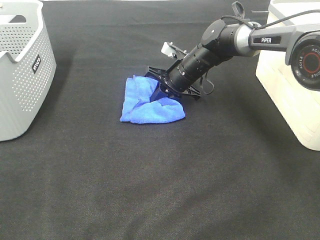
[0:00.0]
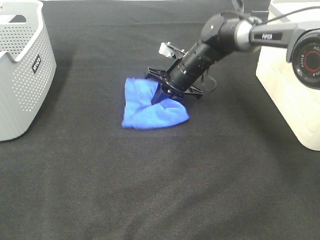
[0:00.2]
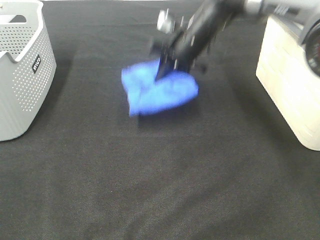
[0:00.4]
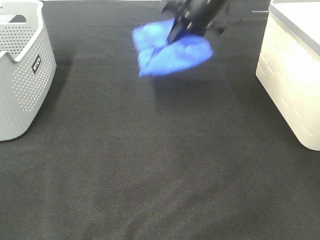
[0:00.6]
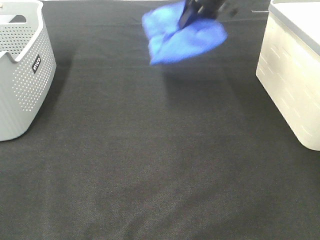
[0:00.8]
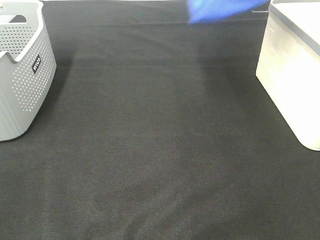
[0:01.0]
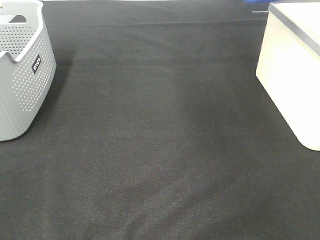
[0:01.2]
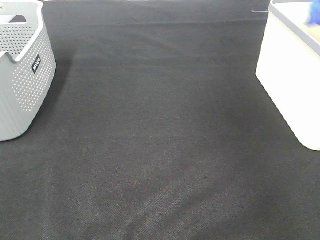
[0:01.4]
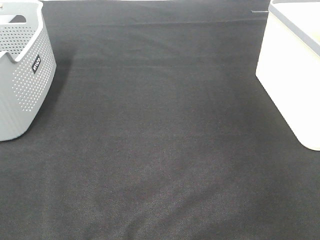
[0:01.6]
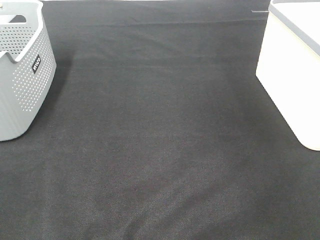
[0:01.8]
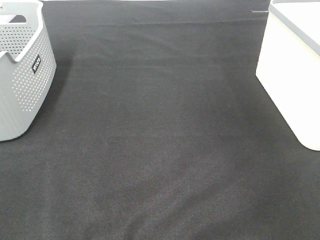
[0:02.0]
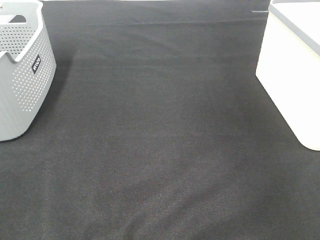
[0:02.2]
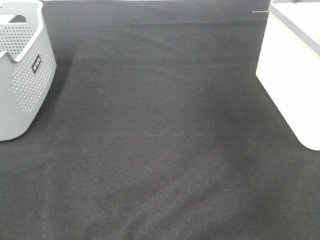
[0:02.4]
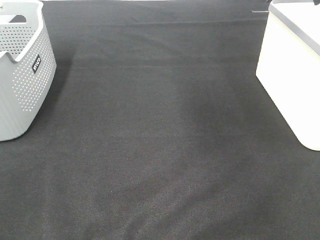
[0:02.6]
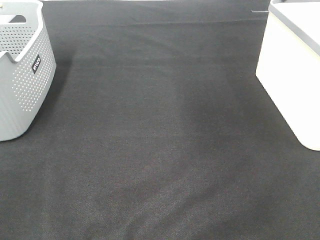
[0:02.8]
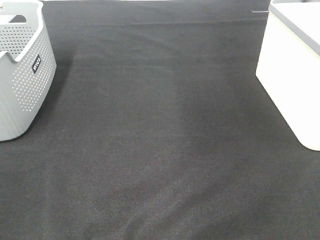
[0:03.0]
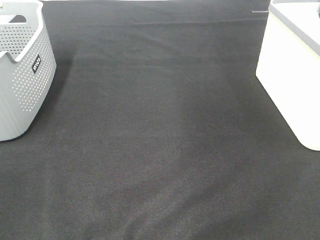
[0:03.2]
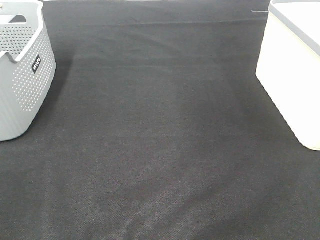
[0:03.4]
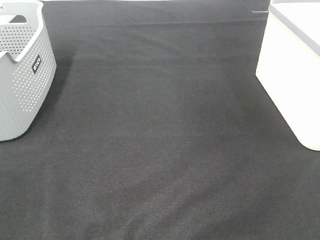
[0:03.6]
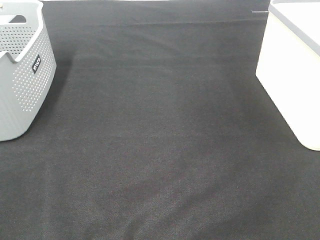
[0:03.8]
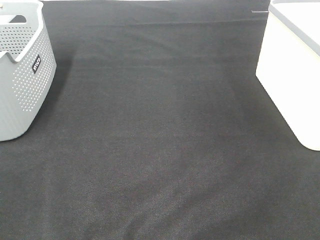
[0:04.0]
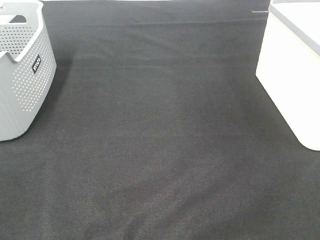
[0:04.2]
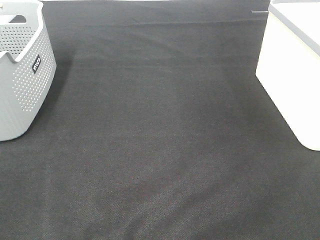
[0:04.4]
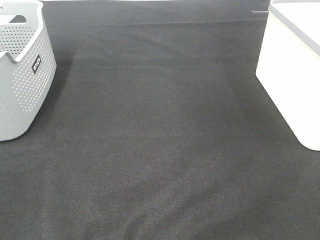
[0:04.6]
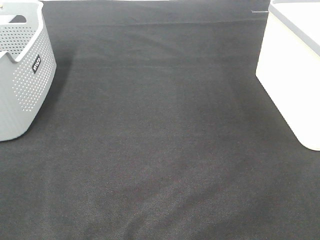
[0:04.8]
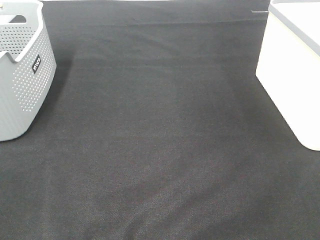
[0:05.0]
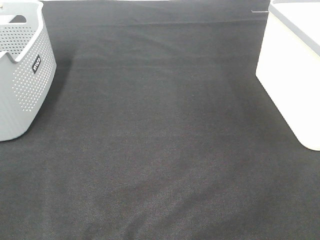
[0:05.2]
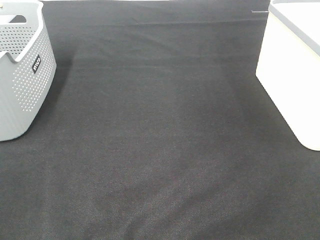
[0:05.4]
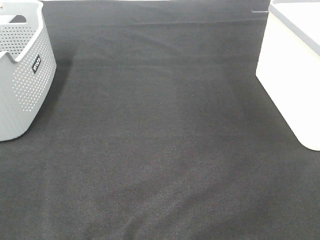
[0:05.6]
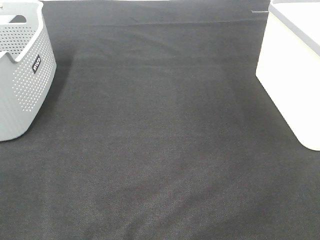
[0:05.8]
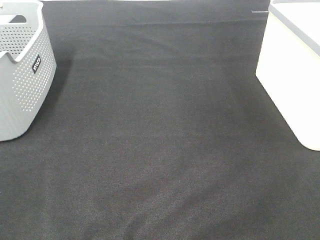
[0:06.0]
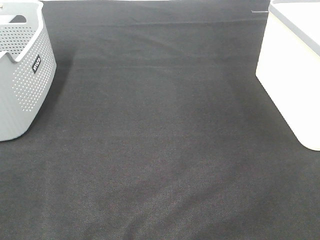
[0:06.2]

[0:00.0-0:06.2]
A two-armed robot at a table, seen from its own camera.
Step, 0:00.2 to 0:02.0: Right hand: place the blue towel in right basket.
0:00.0 to 0:01.6: The right gripper heads to the right and upward, covering roughly 40 cm.
0:04.6 to 0:06.2: The two grippers keep their place.

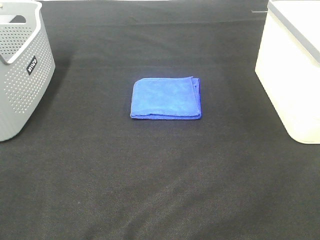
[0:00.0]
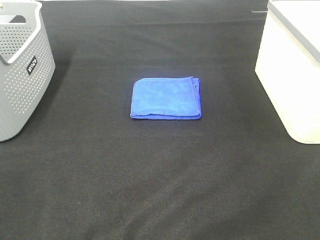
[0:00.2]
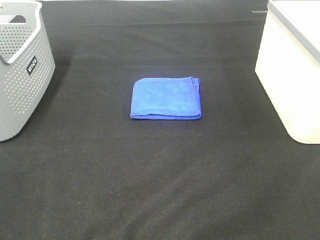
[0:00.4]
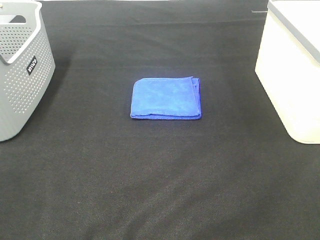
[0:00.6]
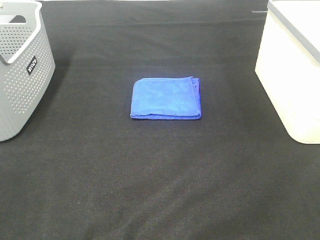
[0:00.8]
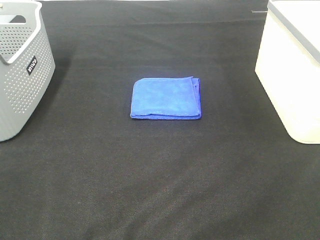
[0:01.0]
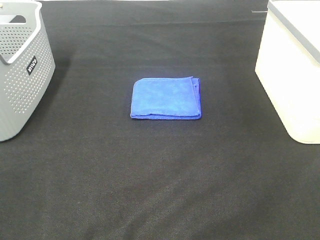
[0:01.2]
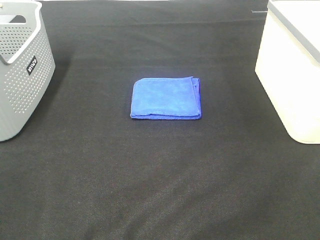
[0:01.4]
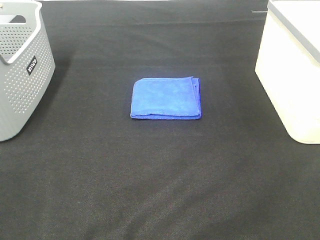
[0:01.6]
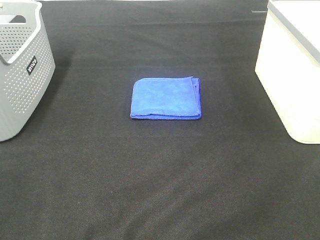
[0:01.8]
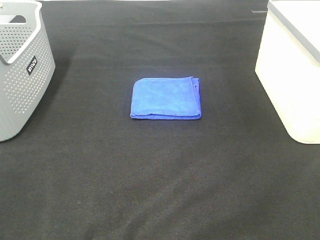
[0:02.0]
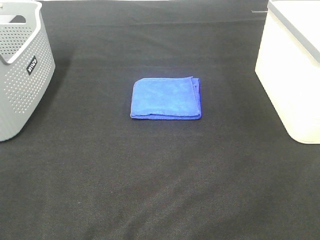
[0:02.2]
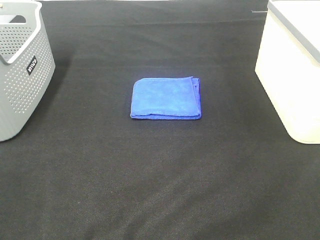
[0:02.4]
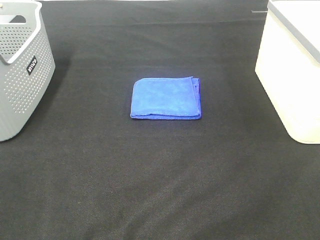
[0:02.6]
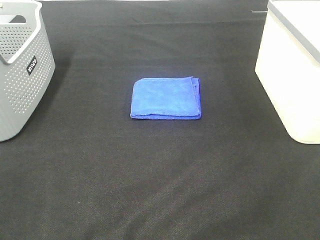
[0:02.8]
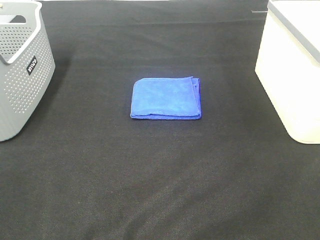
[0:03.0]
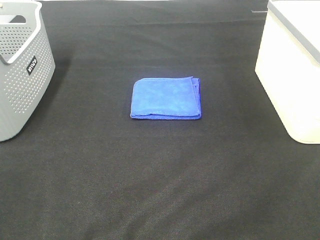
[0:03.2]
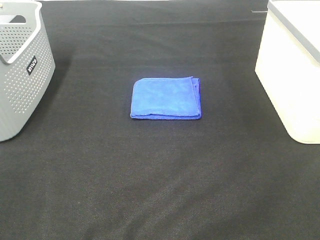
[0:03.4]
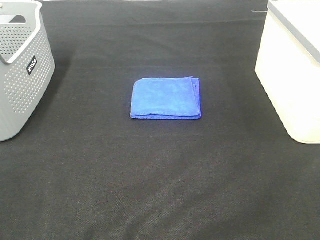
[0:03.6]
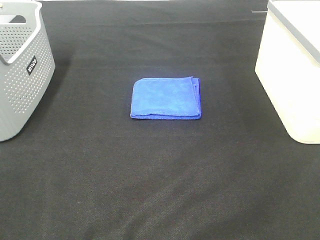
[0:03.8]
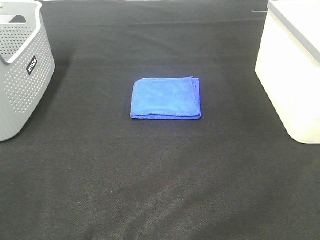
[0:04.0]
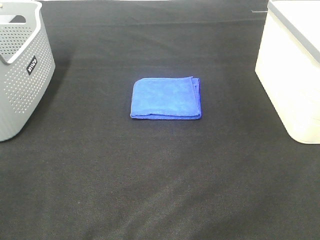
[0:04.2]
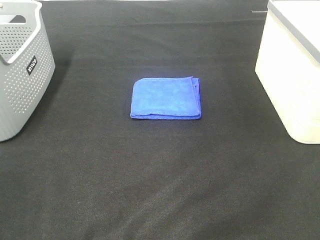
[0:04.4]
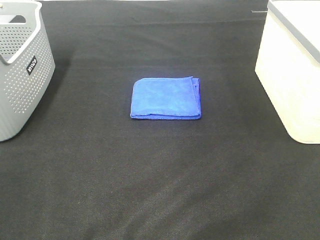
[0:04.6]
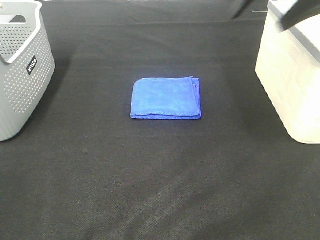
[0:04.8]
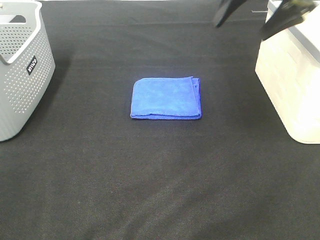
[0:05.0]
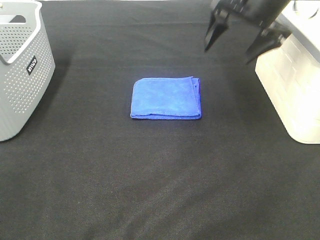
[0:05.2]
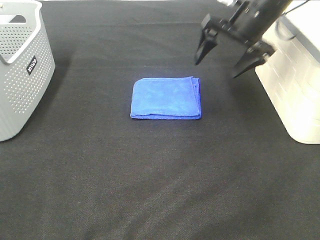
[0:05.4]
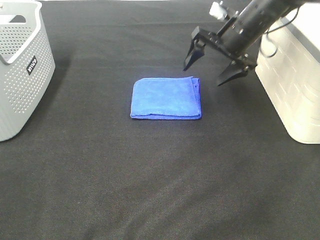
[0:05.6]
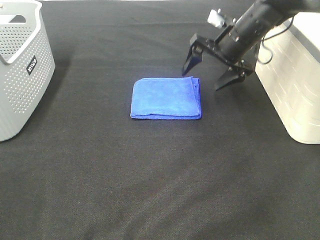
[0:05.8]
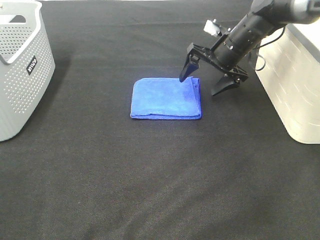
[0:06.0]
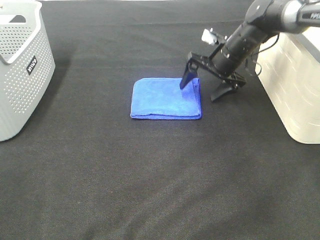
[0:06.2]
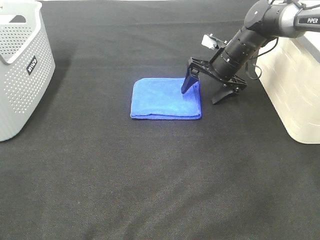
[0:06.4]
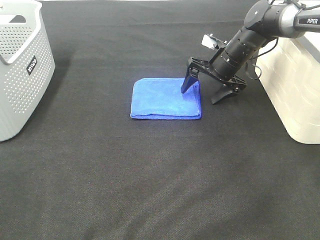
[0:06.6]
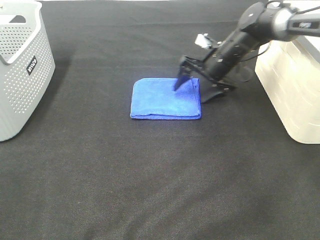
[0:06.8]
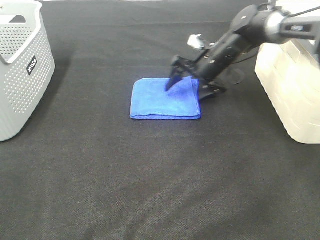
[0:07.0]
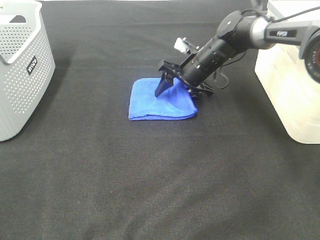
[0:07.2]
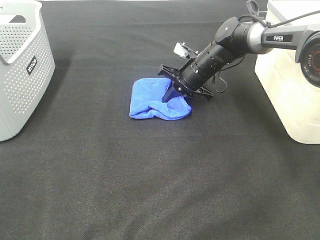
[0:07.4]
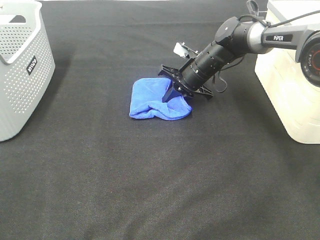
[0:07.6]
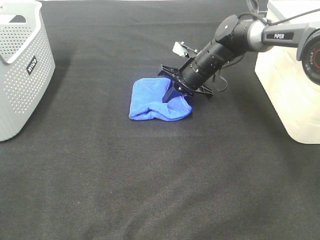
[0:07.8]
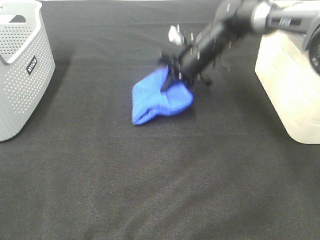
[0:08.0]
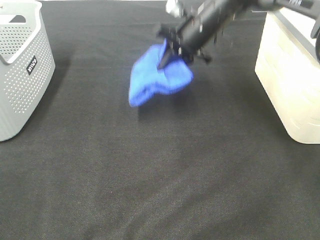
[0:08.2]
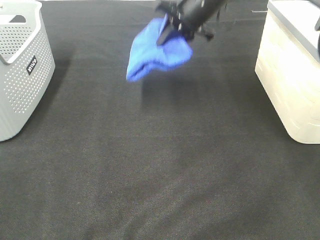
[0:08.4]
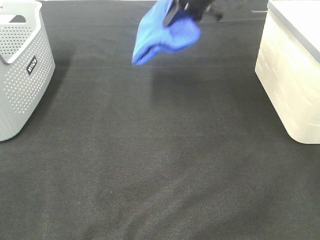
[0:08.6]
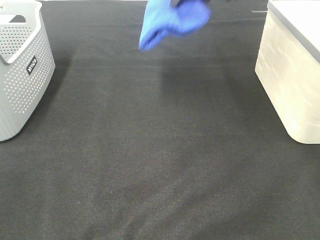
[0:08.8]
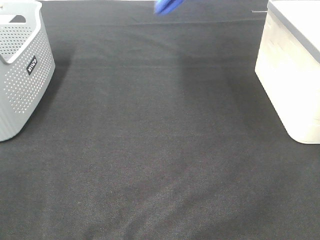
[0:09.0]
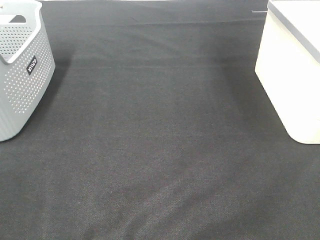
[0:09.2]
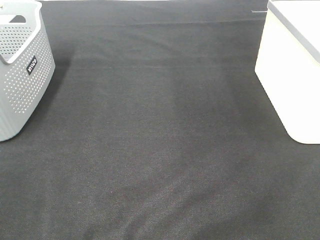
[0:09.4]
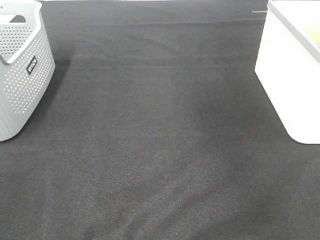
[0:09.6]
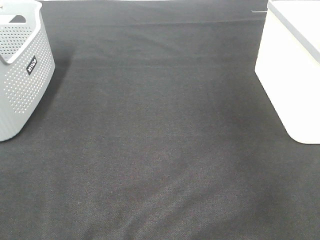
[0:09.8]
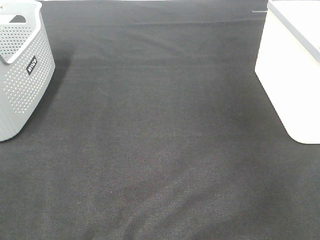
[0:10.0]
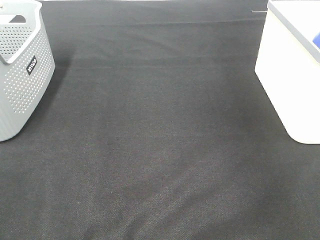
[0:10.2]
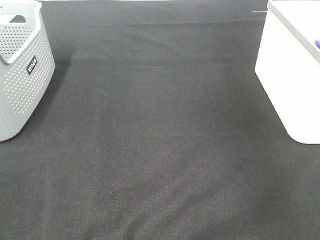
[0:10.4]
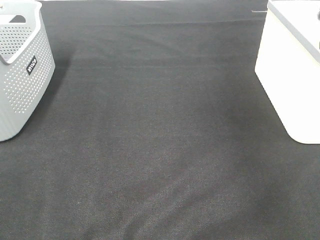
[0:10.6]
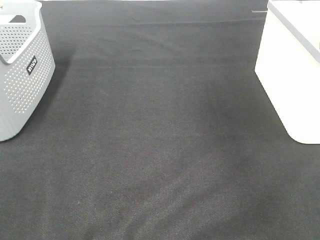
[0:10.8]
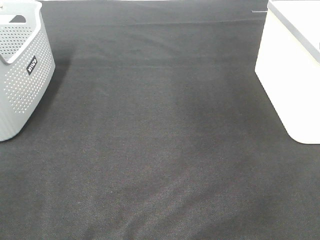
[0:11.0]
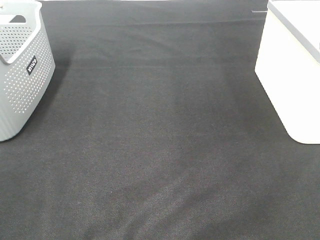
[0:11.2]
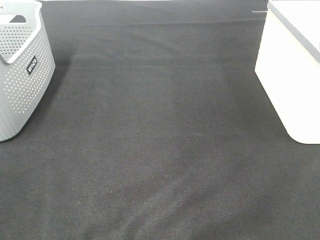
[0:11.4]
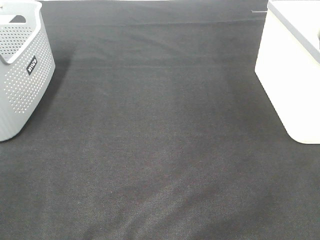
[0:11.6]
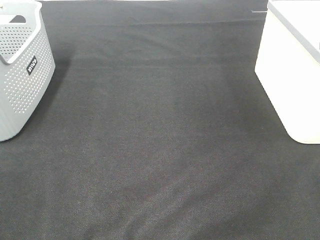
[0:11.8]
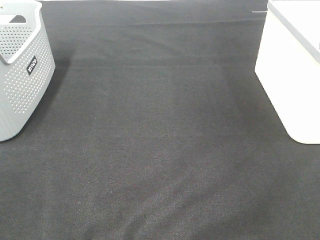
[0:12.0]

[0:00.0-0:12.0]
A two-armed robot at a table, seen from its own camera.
Step, 0:00.0 to 0:07.6: Right hand: grab the folded blue towel.
Step, 0:07.8 to 0:10.4: Right hand: place the blue towel in right basket.
0:00.0 to 0:03.0: Both grippers stay about where they are.
0:04.4 to 0:06.0: The right gripper travels downward, forward and to the left by some 40 cm.
0:06.0 to 0:07.6: The right gripper shifts roughly 10 cm to the left and downward, and closes its fingers.
0:07.6 to 0:09.0: The right gripper heads upward, covering approximately 35 cm.
0:09.0 to 0:10.4: The right gripper moves to the right, approximately 25 cm, and opens its fingers.

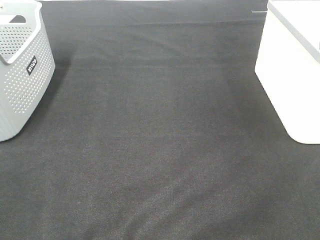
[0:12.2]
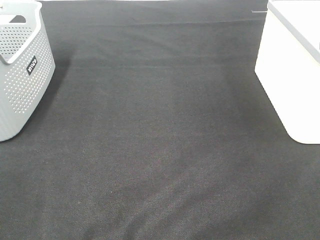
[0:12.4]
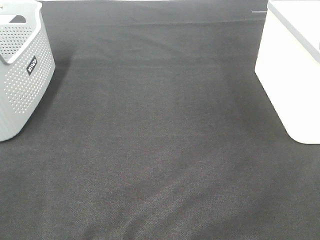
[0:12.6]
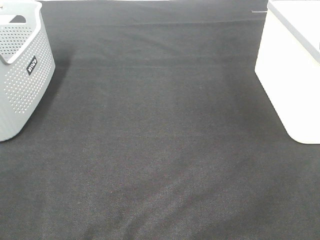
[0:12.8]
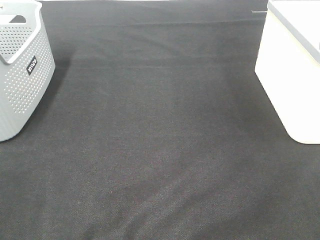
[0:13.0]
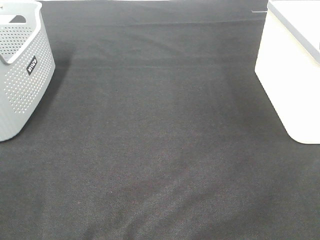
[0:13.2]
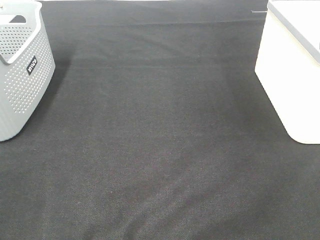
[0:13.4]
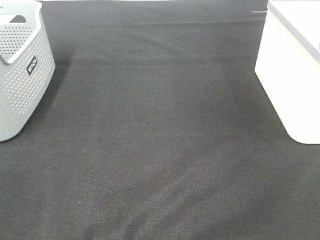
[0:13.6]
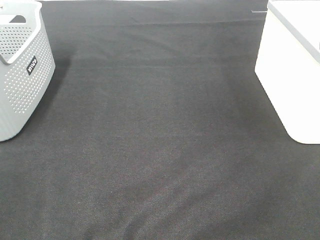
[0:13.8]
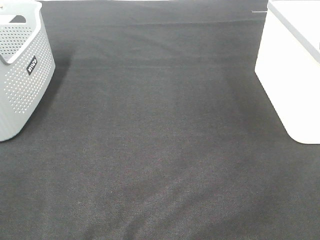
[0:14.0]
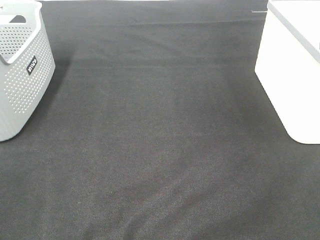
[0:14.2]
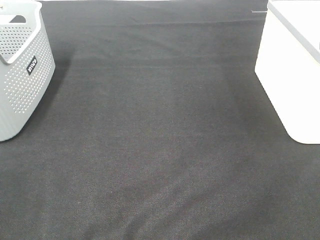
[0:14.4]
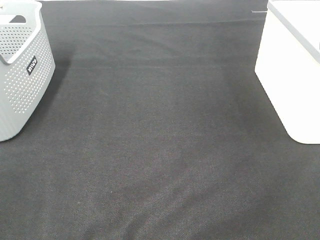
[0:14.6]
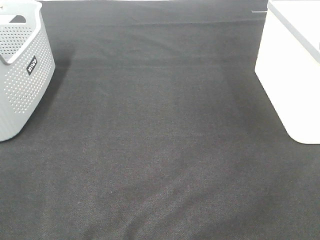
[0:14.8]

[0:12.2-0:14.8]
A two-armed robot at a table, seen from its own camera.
0:13.4 to 0:14.8: The two grippers keep their place.

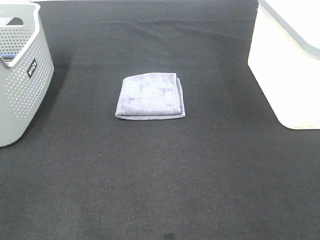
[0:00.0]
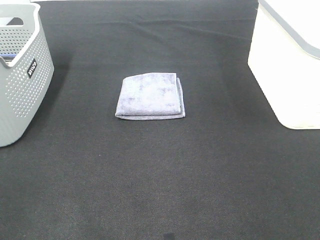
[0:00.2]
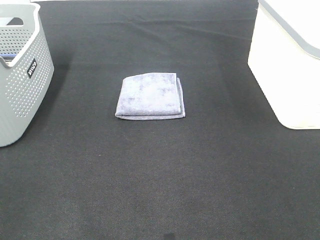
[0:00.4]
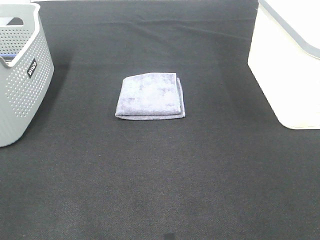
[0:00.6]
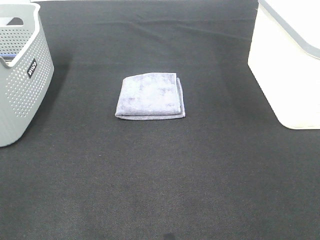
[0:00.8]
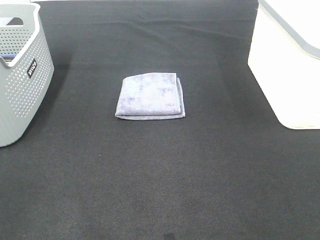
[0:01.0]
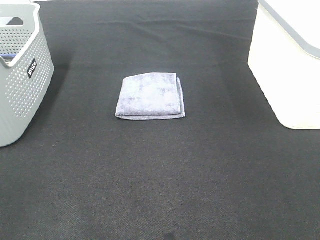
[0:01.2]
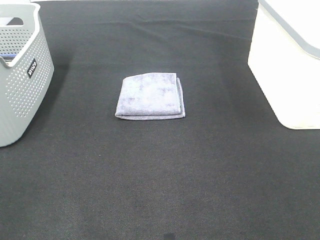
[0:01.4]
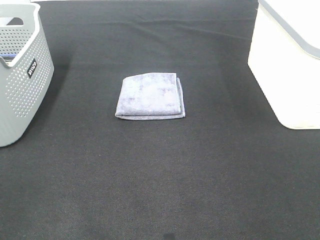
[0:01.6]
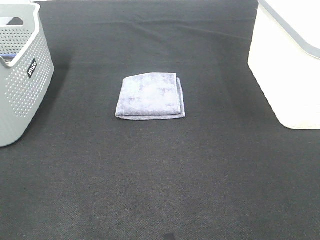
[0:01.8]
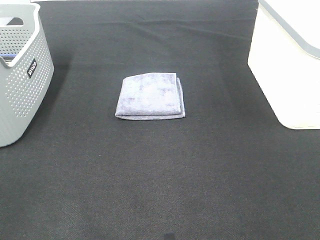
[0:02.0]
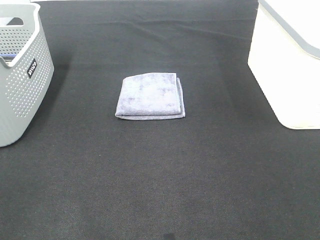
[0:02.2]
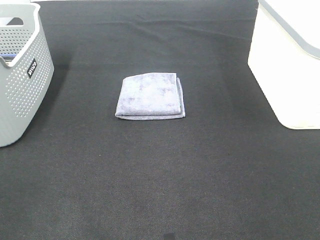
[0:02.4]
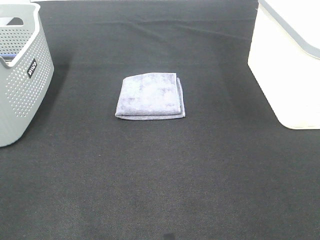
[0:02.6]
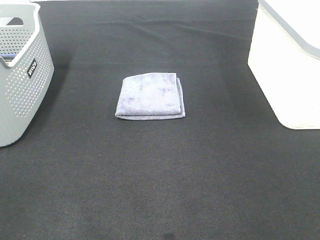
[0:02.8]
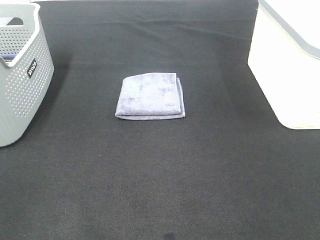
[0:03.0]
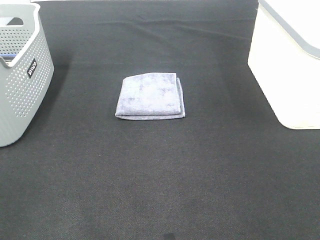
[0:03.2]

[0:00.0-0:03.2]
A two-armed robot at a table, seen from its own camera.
0:00.0 to 0:03.2: Both grippers stay put.
